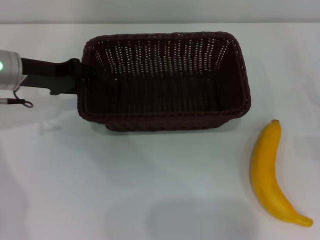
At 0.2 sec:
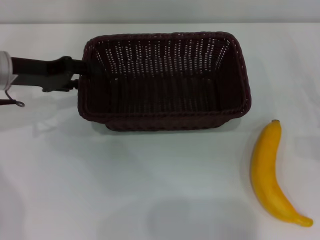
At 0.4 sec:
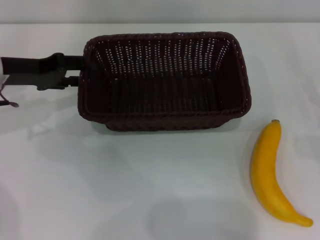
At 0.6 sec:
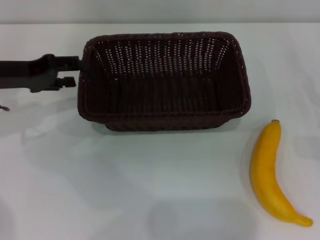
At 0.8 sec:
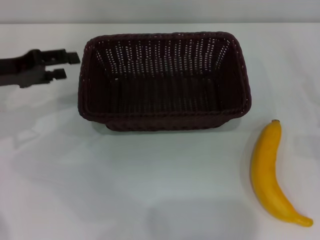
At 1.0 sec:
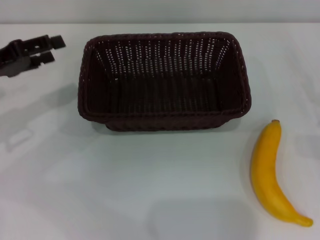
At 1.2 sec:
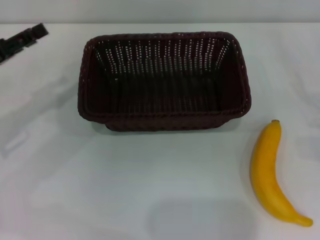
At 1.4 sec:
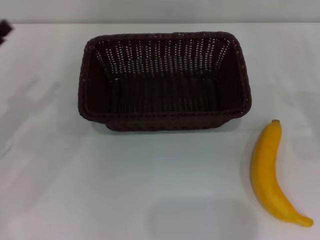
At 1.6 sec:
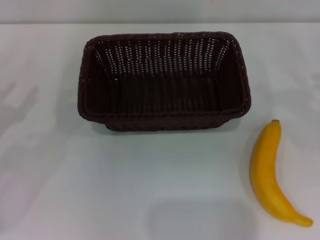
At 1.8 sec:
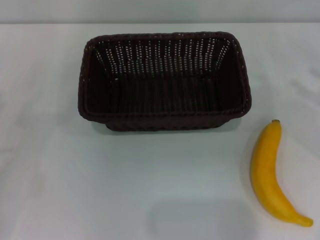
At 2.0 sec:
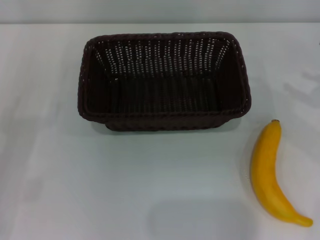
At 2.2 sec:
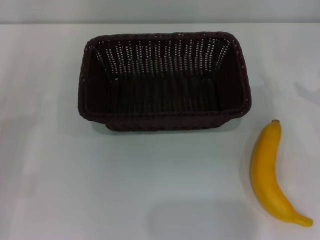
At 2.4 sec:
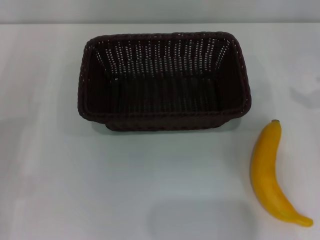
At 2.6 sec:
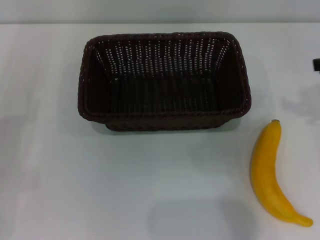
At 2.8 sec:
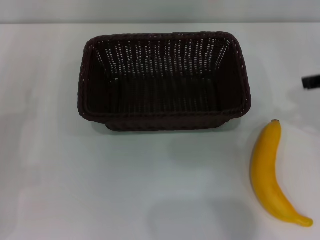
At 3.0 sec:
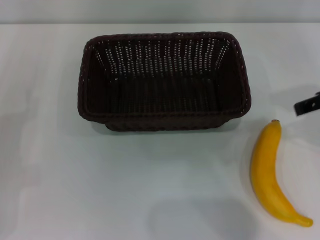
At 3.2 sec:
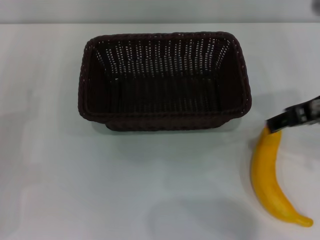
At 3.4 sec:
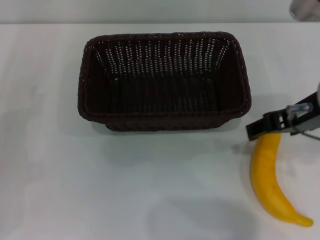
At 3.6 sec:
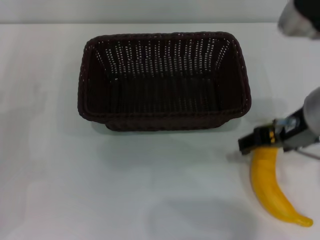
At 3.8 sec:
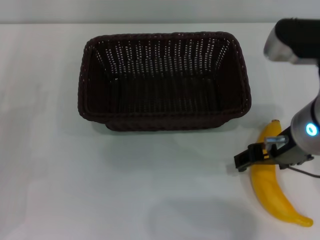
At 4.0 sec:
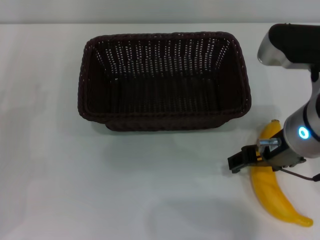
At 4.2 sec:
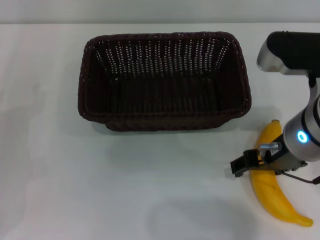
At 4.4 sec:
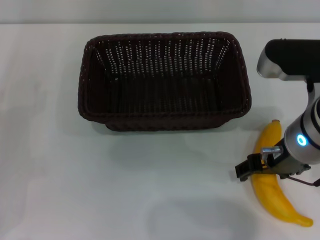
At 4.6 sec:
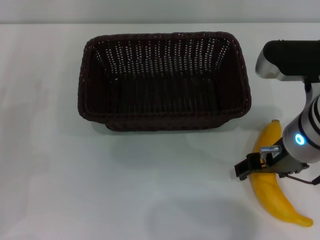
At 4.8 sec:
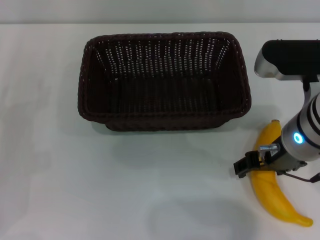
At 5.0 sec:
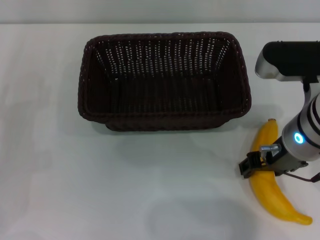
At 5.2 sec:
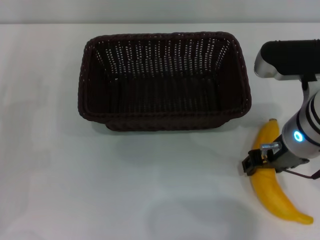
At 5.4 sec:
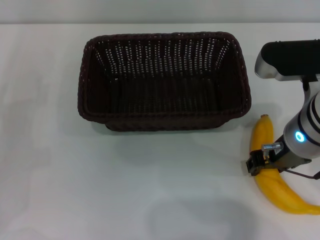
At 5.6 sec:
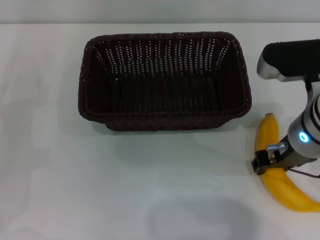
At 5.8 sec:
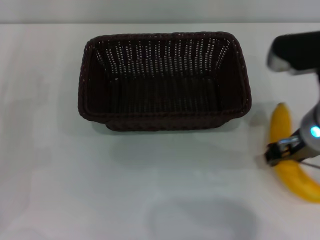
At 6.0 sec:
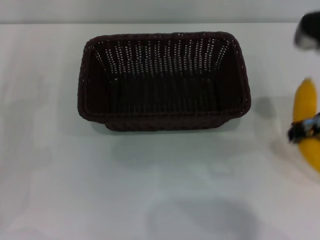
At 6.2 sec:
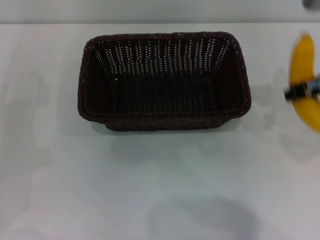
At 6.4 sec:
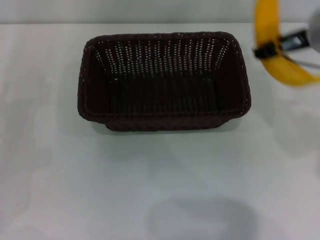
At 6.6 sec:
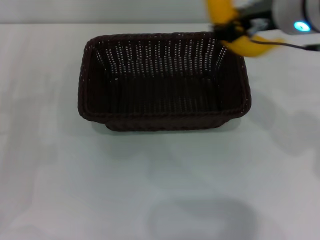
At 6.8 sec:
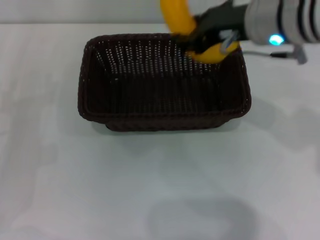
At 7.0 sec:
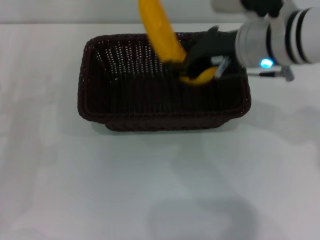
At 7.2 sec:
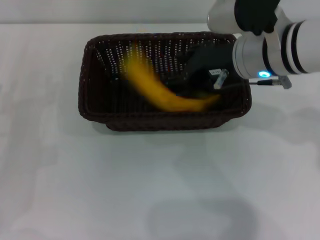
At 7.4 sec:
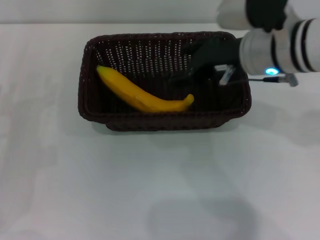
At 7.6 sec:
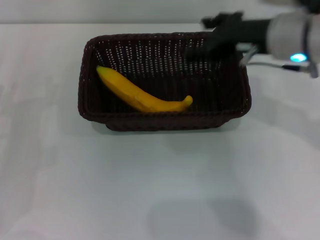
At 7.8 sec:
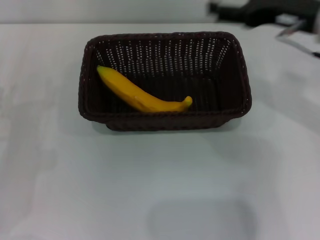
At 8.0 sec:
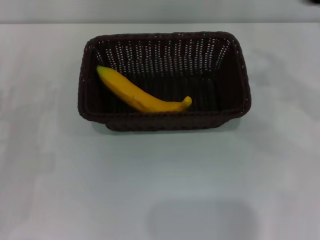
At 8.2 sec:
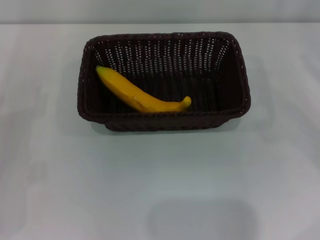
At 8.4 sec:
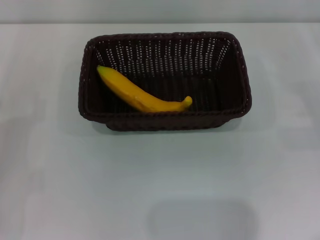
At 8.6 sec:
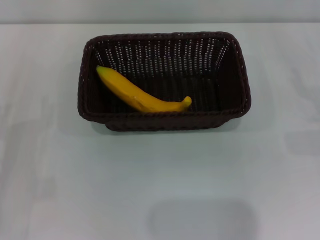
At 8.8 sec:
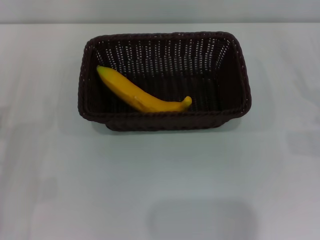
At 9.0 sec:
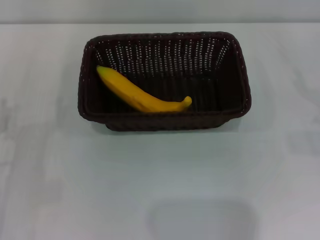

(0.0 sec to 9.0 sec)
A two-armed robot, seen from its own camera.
Step, 0.8 sec - 5.8 sec: Pick up the banana with the right gripper.
Step, 6.0 sec - 7.4 sec: Place the banana into the dark basket with the right gripper.
0.0 sec - 1.6 sec: The left gripper travels backward and to the left by approximately 15 cm, and opens.
3.0 sec - 4.4 sec: The right gripper travels to the left and downward by approximately 10 cm.
4.4 sec - 6.0 sec: The right gripper closes its fingers.
6.0 sec - 7.6 sec: The right gripper travels forward by about 5 cm, and opens its fingers.
7.6 sec - 9.0 sec: The right gripper heads to the right and downward, covering roughly 30 cm.
